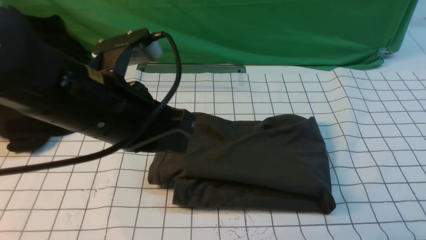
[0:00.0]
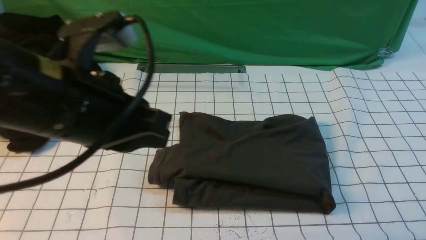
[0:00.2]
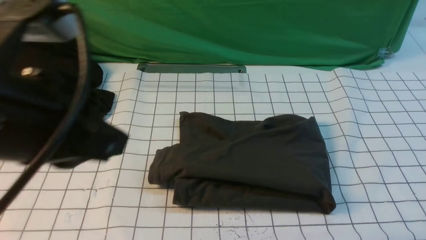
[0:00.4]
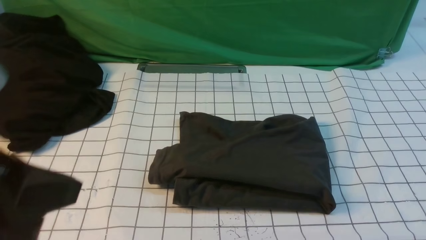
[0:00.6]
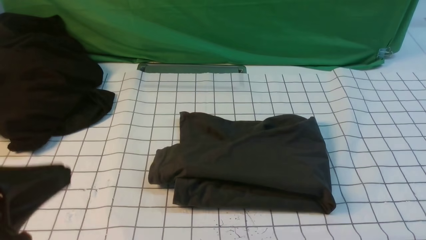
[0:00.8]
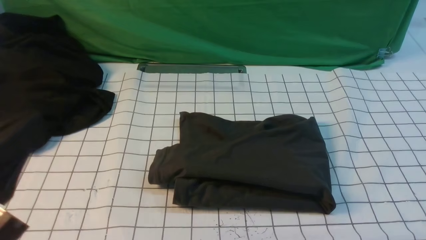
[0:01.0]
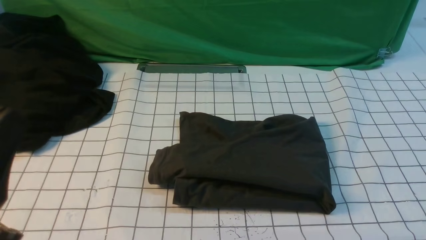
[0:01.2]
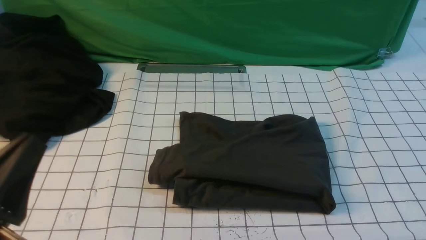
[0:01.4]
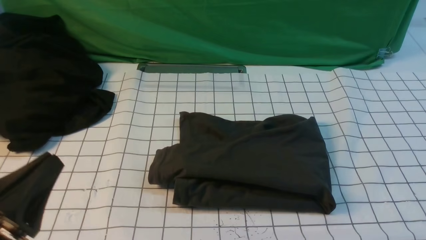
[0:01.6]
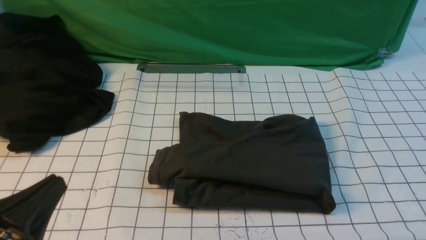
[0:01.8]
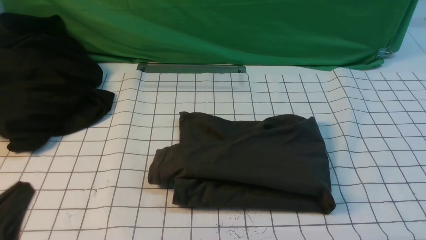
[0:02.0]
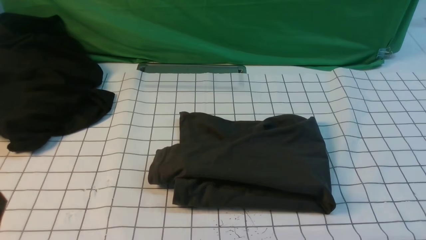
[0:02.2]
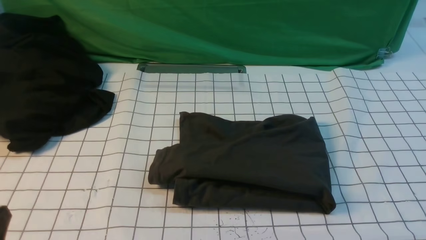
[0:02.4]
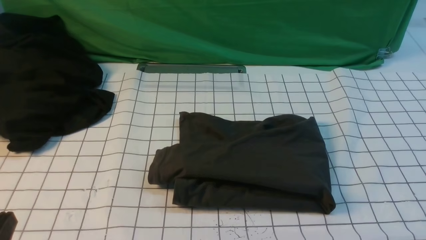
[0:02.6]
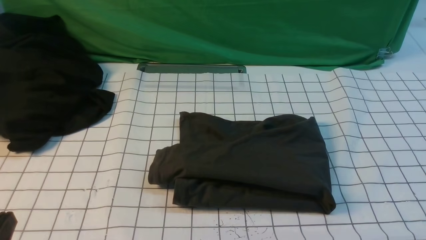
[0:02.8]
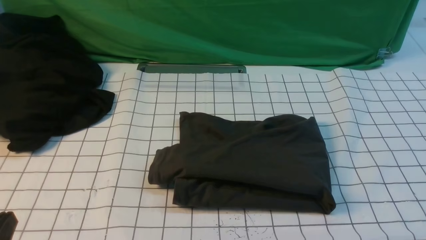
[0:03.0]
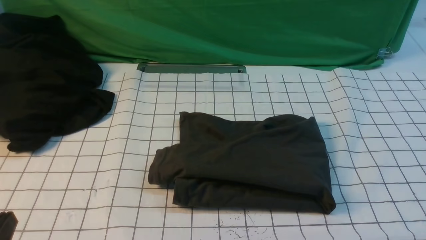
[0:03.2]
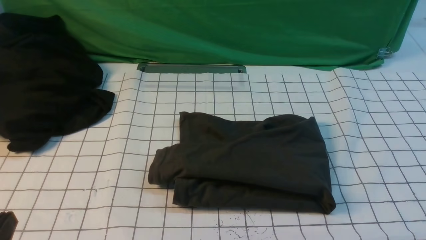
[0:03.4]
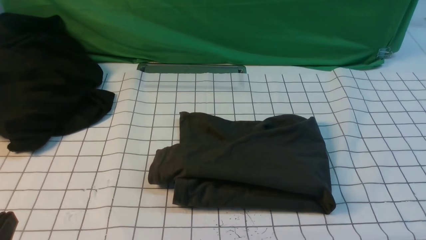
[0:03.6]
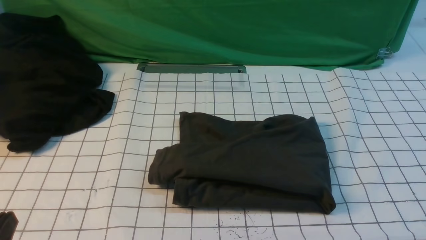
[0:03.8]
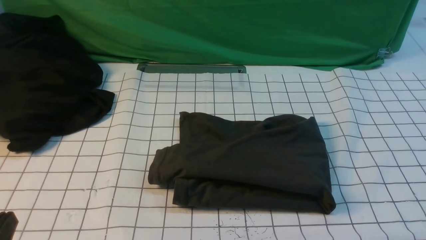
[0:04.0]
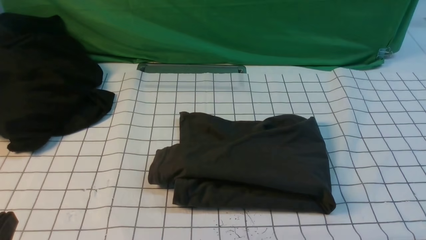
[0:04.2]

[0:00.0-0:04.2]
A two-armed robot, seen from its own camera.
0:00.0 to 0:01.4: The left gripper goes some 20 cm backward, to the left and downward.
0:01.4 to 0:02.8: The left gripper heads downward, covering approximately 10 cm.
0:02.8 to 0:04.2: Both grippers stay about where they are.
